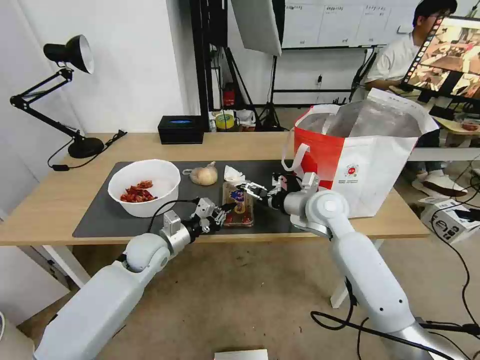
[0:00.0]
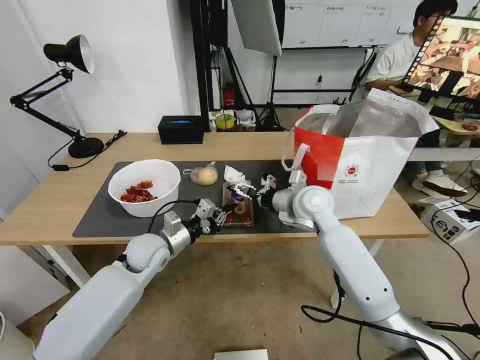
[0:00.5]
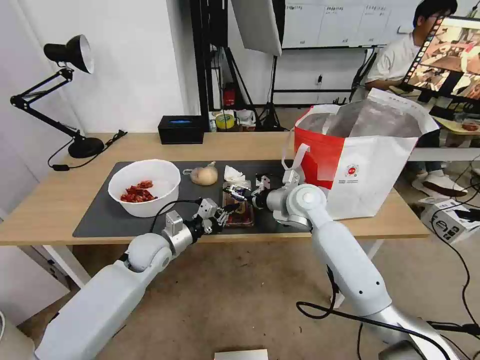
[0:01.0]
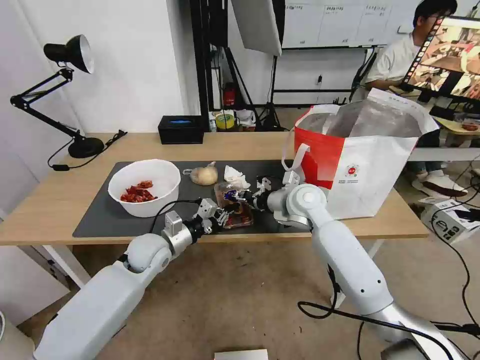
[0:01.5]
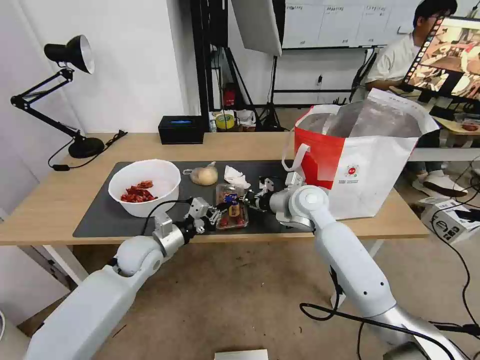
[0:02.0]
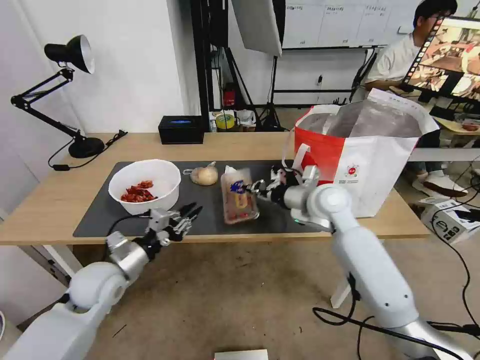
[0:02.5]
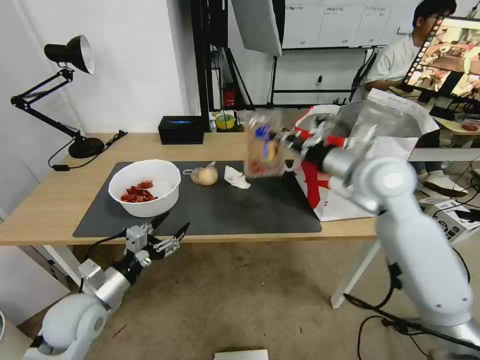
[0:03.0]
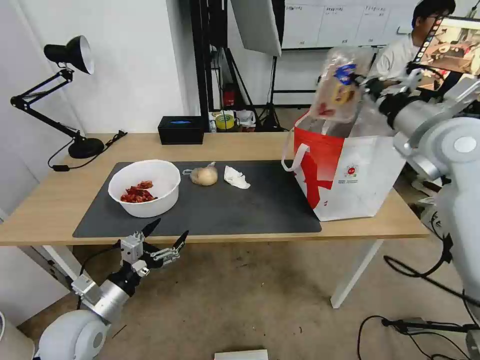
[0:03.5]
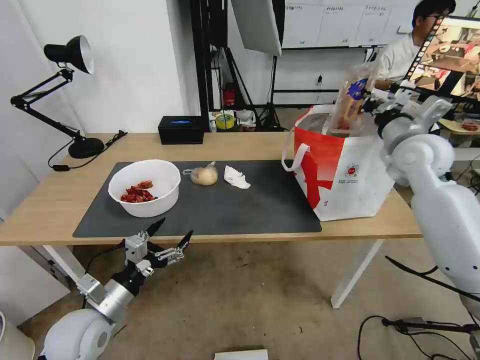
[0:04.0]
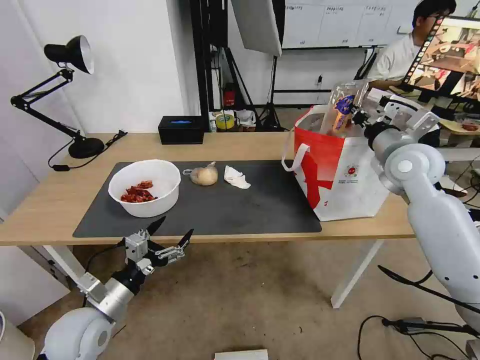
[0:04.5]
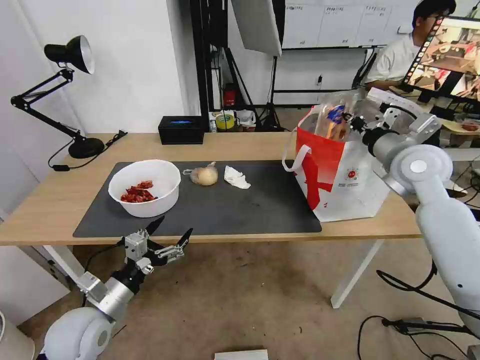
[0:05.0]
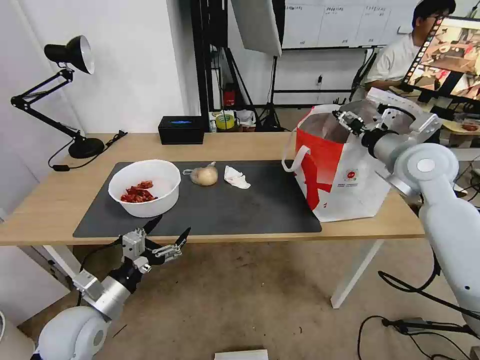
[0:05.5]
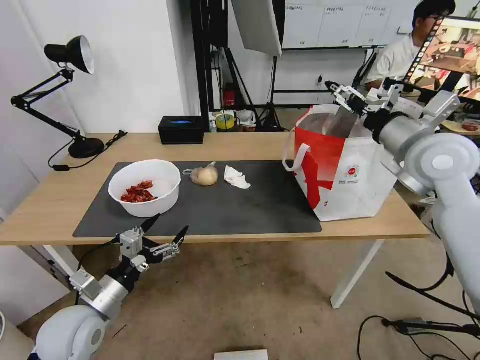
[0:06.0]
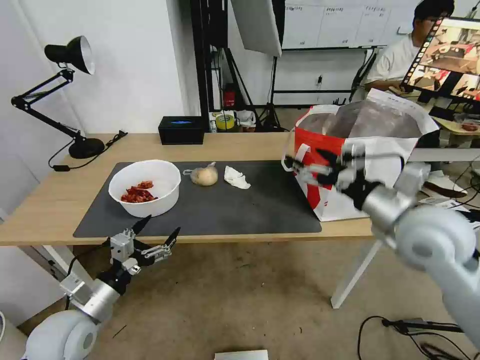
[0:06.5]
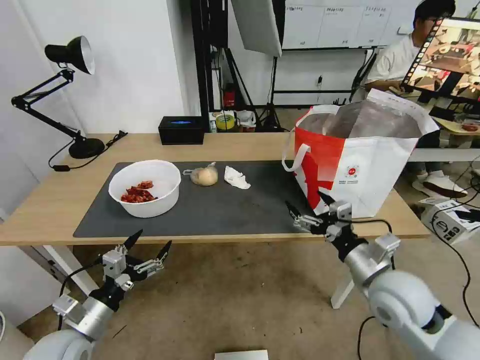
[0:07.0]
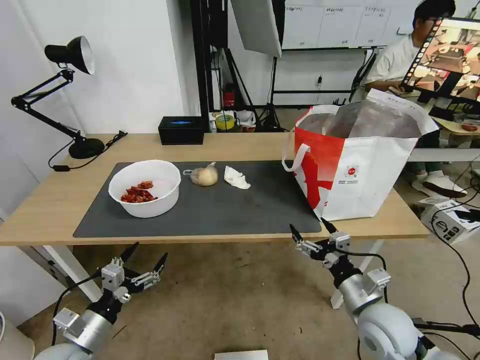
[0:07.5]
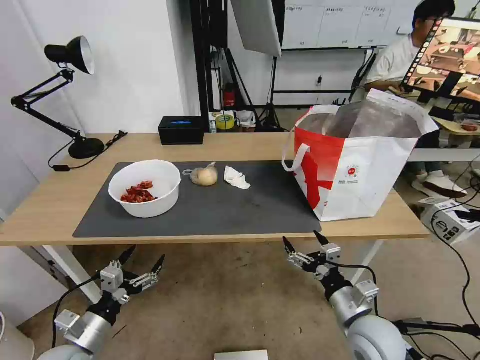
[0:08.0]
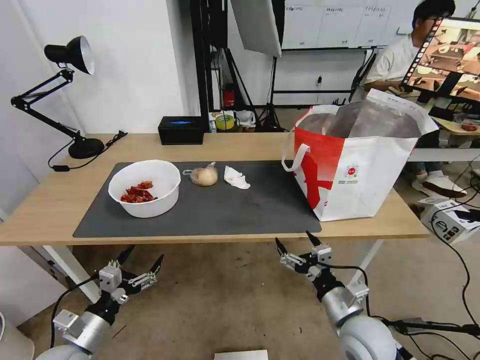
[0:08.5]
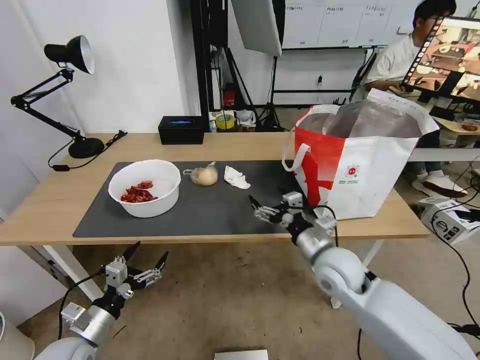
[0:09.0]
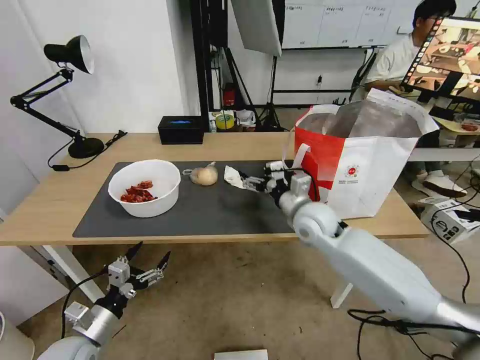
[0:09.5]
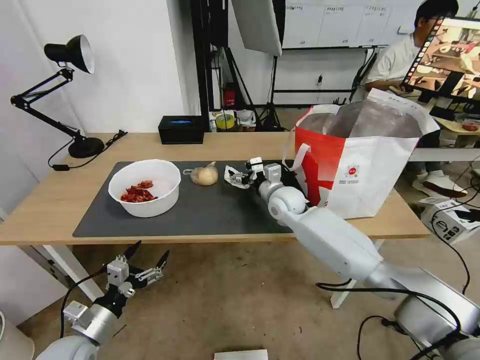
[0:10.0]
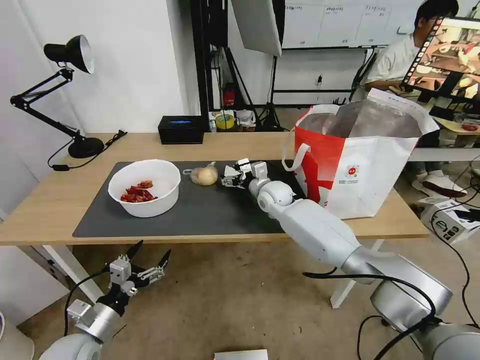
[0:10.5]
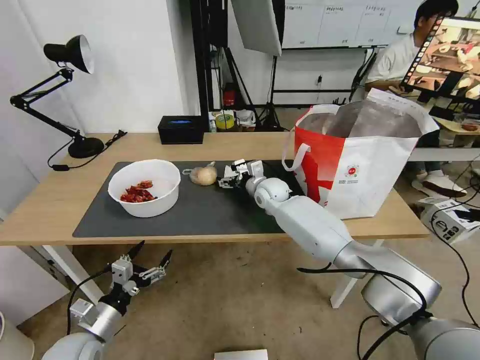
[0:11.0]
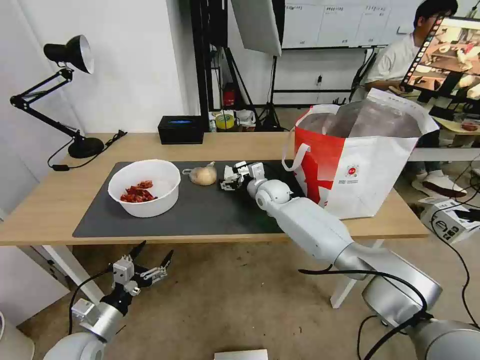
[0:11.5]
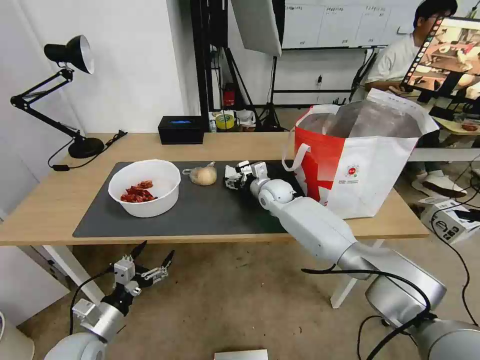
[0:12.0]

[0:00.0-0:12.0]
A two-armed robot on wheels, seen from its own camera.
Task of the whole recording: Pick up the trash from the table and place it into the takeout bag.
0:00.0 to 0:02.0: The right gripper closes its fingers.
0:02.0 to 0:04.0: The right gripper shifts some 25 cm to the right and upward, while the left gripper is displaced backward by about 15 cm, and opens.
0:04.0 to 0:06.0: The right gripper is displaced backward by roughly 5 cm, and opens up.
0:06.0 to 0:08.0: The right gripper travels downward and backward by about 35 cm, while the left gripper shifts about 10 cm downward and backward.
0:08.0 to 0:10.0: The right gripper heads forward and to the left, covering roughly 35 cm.
0:10.0 to 0:12.0: The right gripper moves roughly 5 cm.

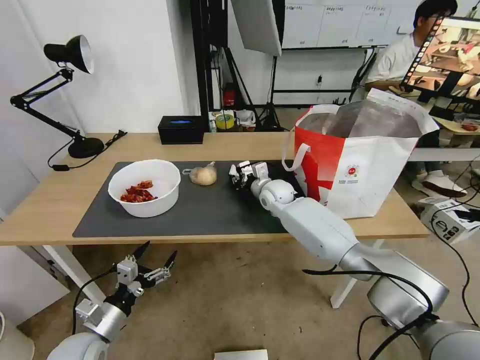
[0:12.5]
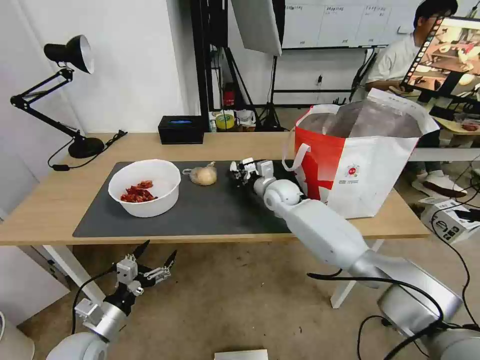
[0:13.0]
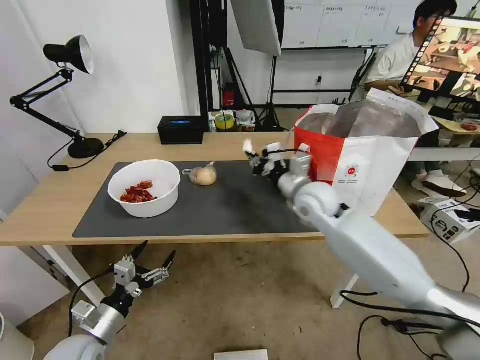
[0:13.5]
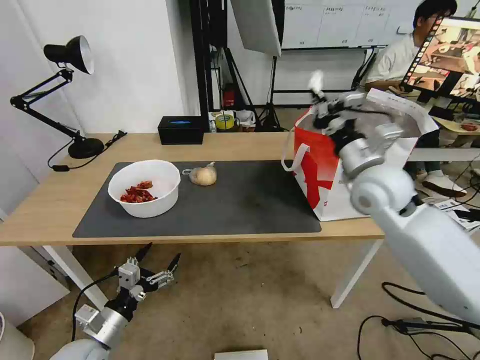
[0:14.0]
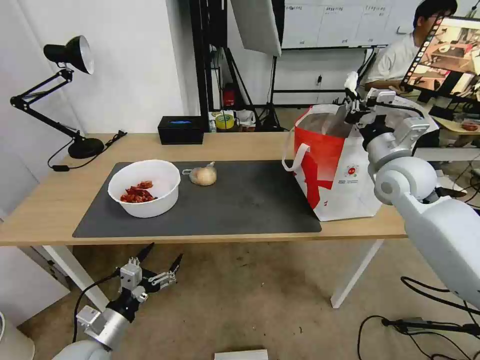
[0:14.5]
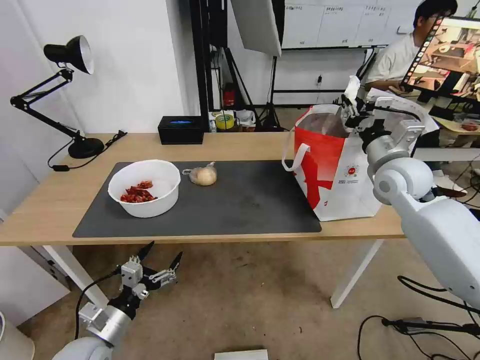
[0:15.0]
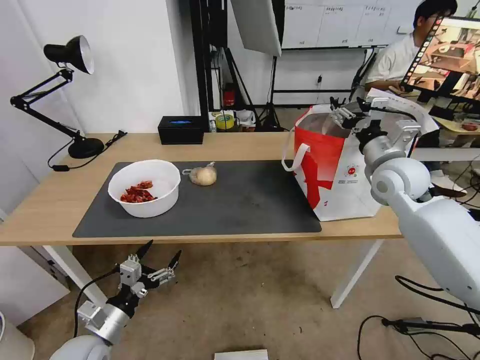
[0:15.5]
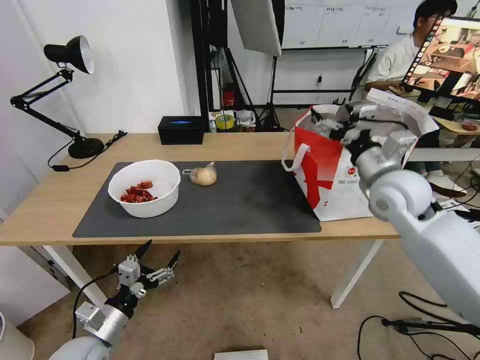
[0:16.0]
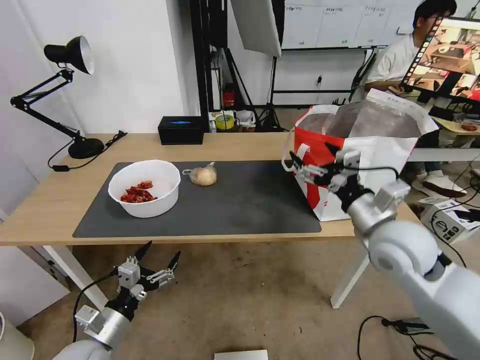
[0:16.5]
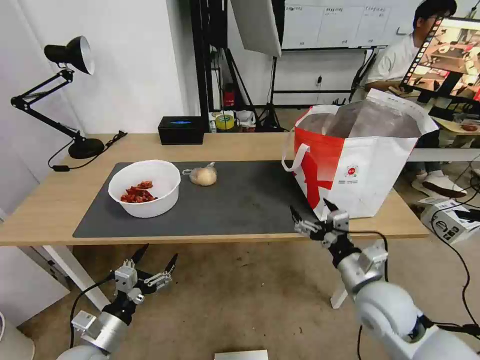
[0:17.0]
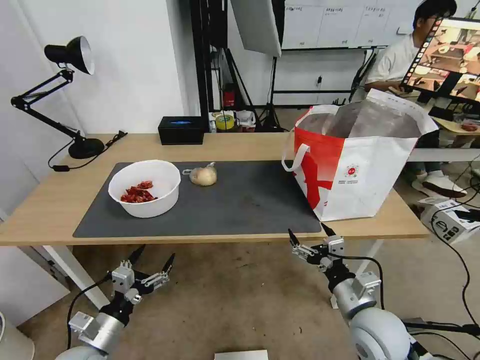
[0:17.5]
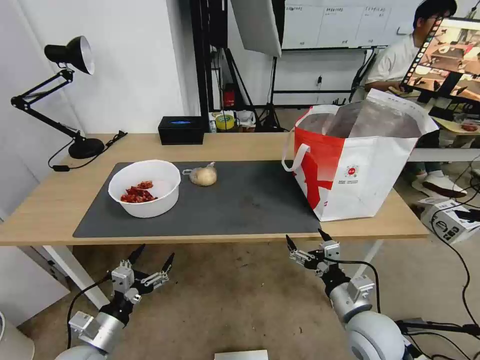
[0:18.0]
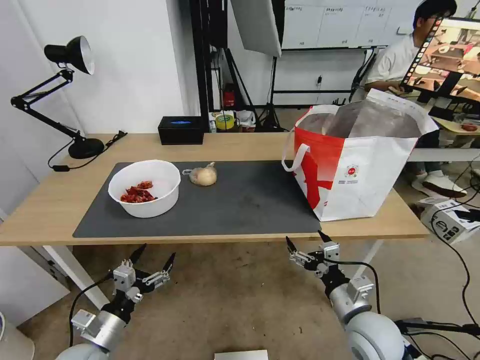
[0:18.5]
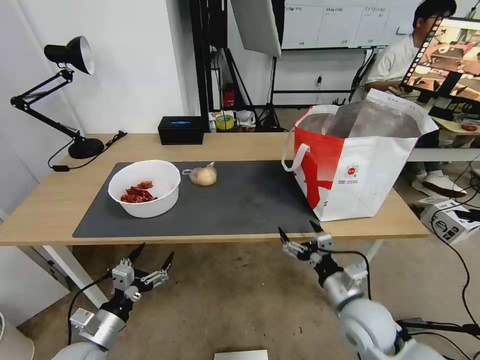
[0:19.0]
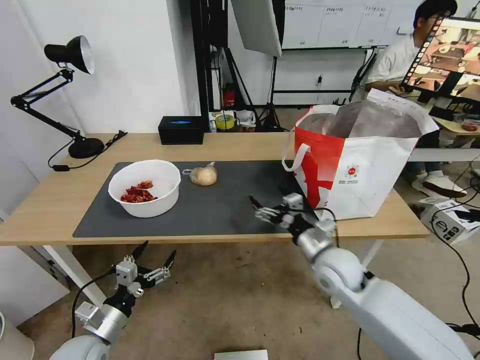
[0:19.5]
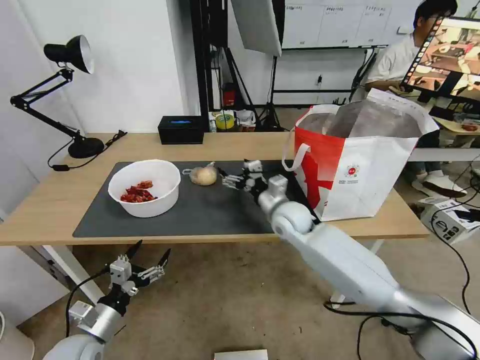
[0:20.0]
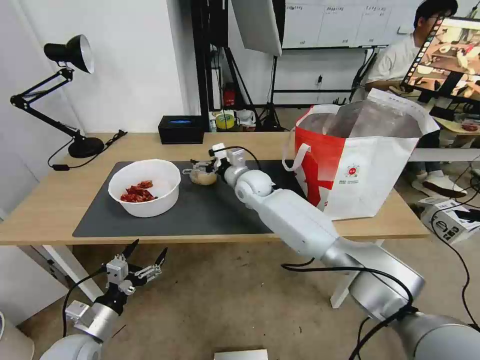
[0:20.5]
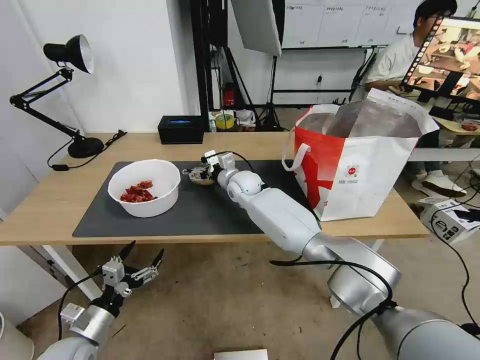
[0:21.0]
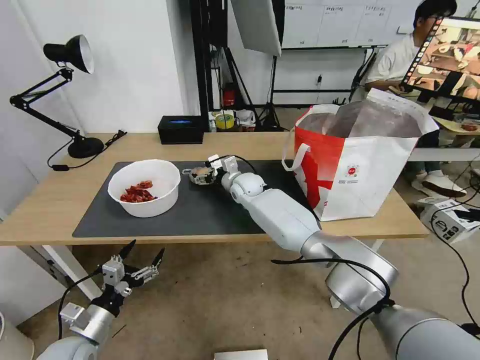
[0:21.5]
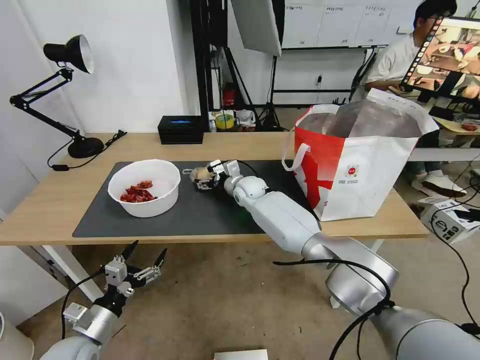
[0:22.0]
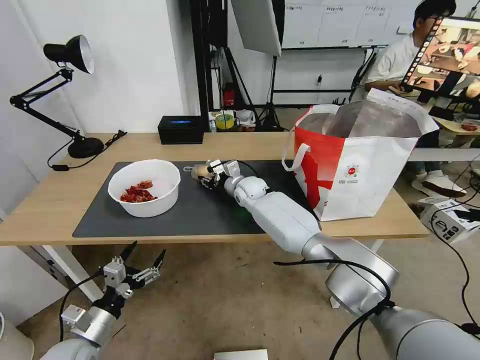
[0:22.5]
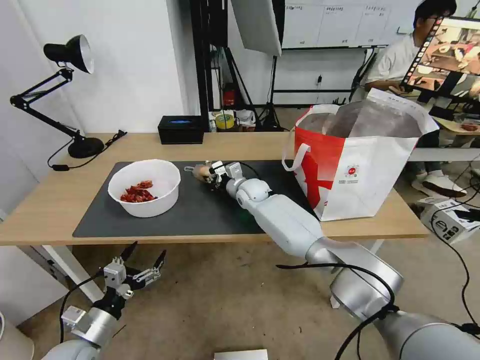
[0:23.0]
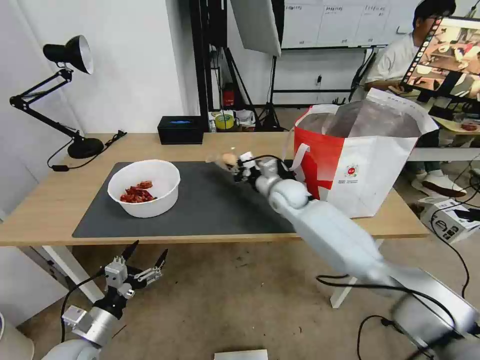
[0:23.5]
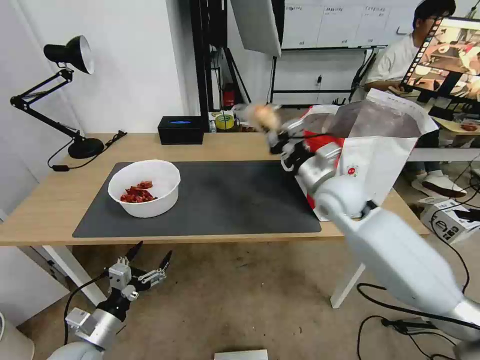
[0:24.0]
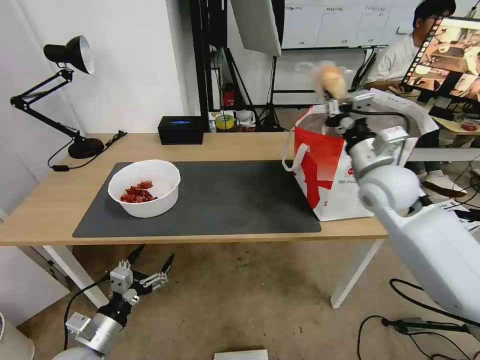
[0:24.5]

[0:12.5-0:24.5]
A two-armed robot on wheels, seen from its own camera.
Task of the whole recording: Pick up the trash from the table and place it into the takeout bag.
0:12.5 to 0:14.5: The right gripper moves to the right, upward and backward, about 30 cm.
0:14.5 to 0:16.5: The right gripper goes about 15 cm backward and to the left, and opens.
0:16.5 to 0:18.5: The right gripper goes approximately 20 cm downward and backward.
0:18.5 to 0:20.5: The right gripper heads forward and to the left, covering about 40 cm.
0:20.5 to 0:22.5: The right gripper shifts approximately 5 cm downward, and closes its fingers.
0:22.5 to 0:24.5: The right gripper is displaced to the right, upward and backward by some 35 cm, and closes up.

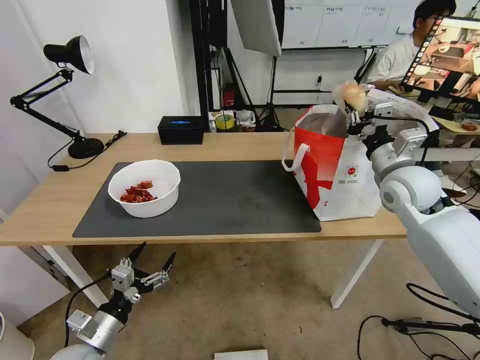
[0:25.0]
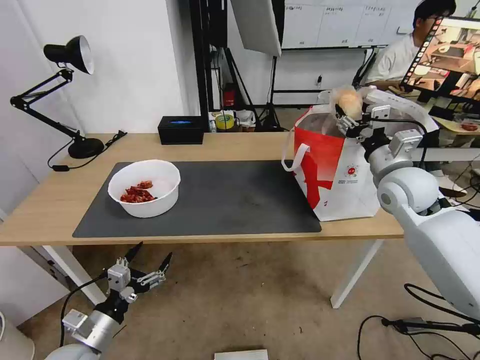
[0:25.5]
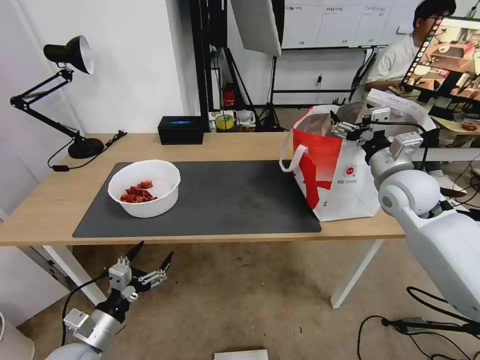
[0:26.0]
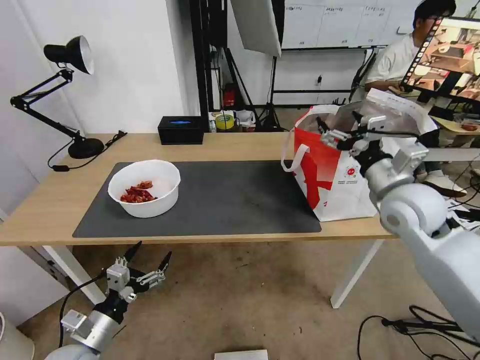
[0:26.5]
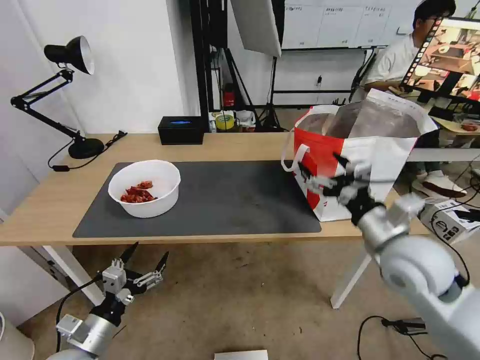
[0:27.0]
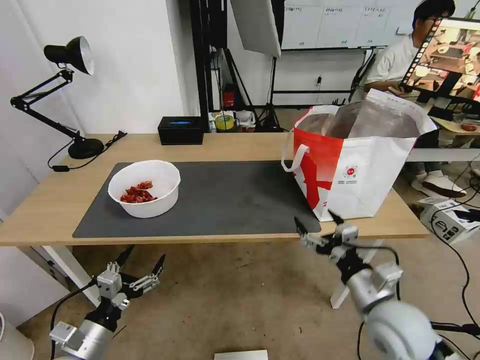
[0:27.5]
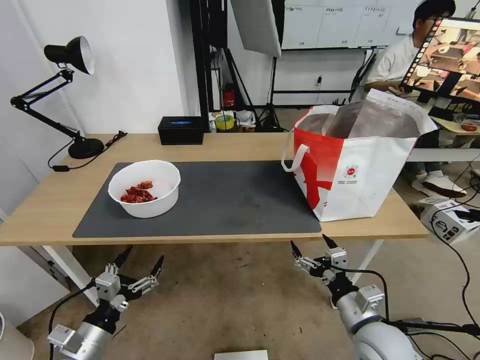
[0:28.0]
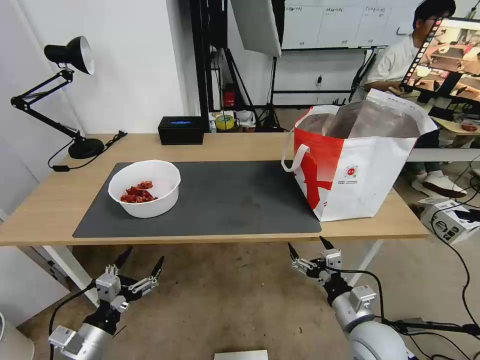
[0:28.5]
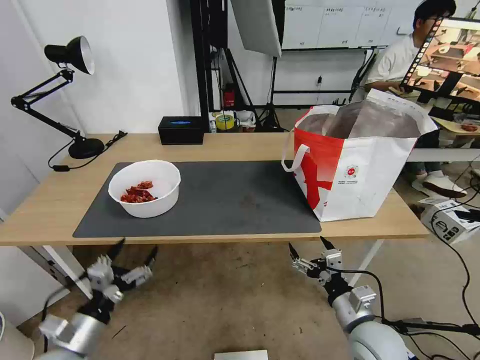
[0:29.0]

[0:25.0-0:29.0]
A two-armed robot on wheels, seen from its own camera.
Task of the whole recording: Pick up the trash from the table and place it into the takeout bag.
0:25.0 to 0:27.0: The right gripper travels backward by some 15 cm, and opens.
0:27.0 to 0:29.0: The right gripper goes some 20 cm downward and backward.
